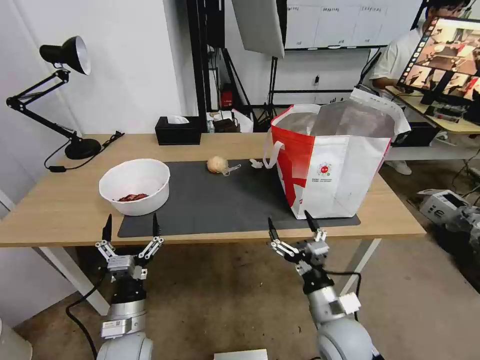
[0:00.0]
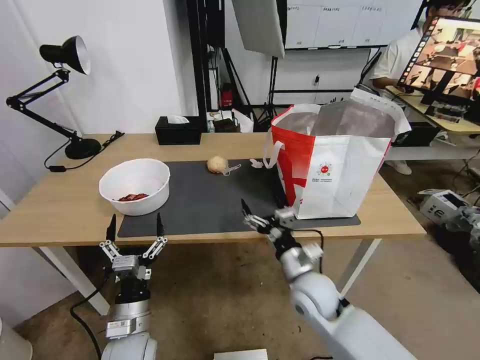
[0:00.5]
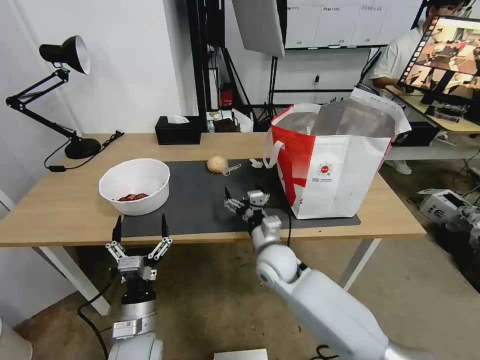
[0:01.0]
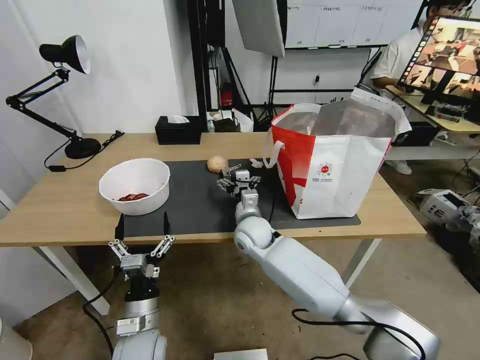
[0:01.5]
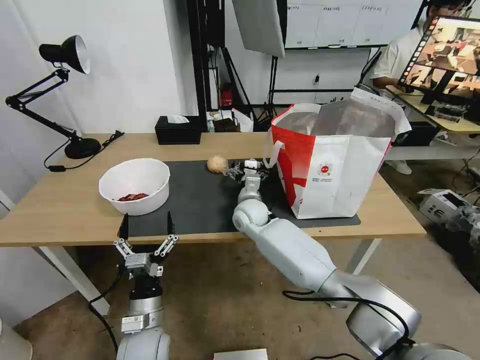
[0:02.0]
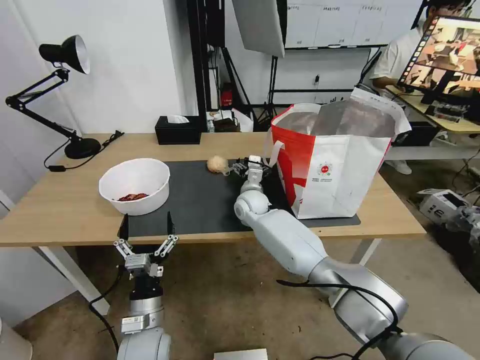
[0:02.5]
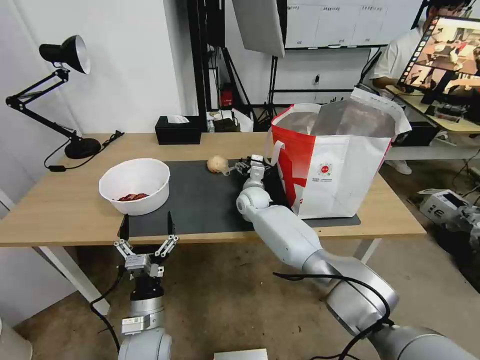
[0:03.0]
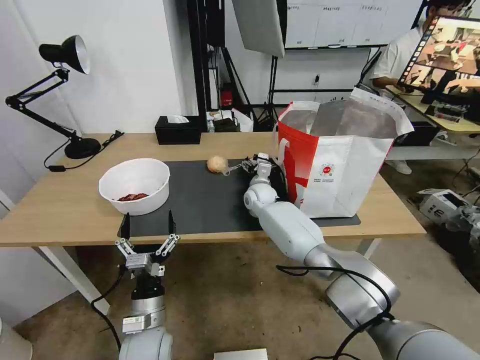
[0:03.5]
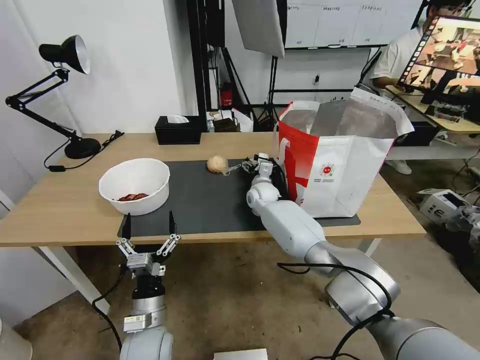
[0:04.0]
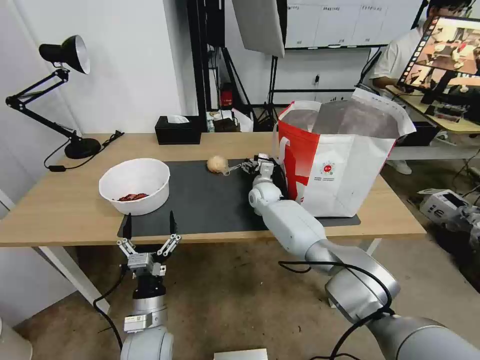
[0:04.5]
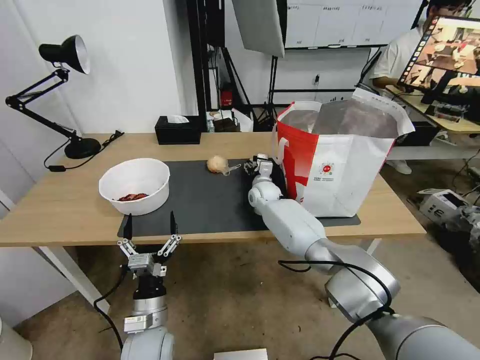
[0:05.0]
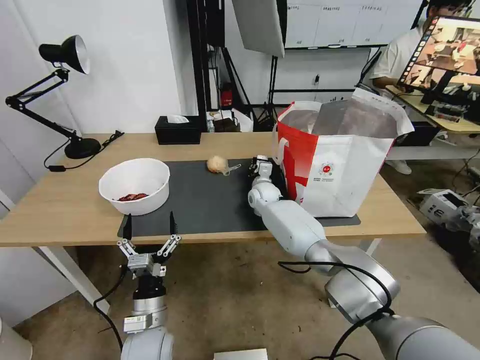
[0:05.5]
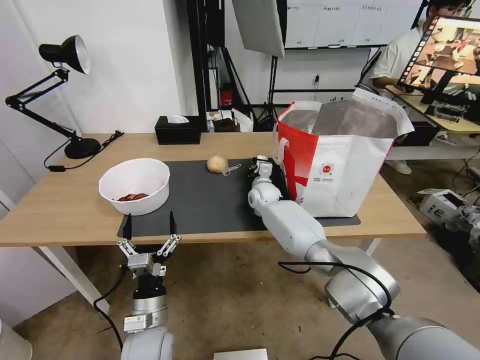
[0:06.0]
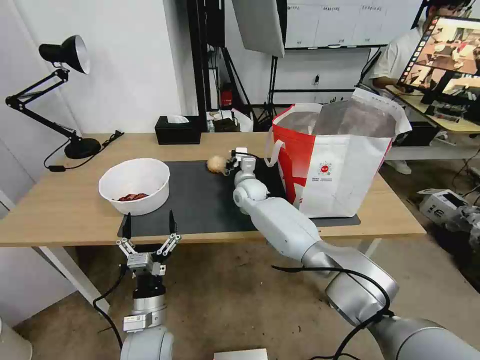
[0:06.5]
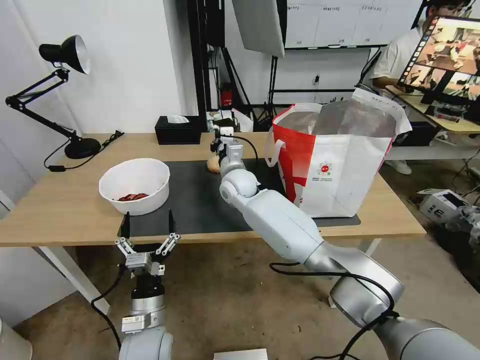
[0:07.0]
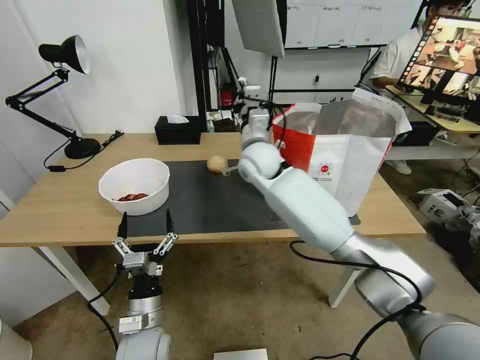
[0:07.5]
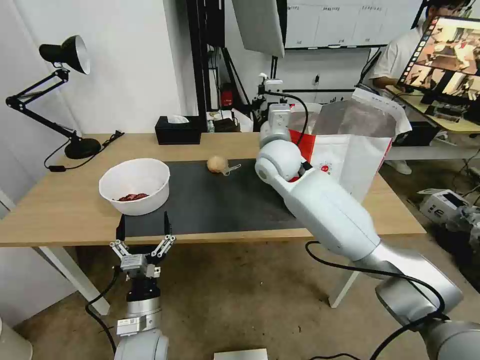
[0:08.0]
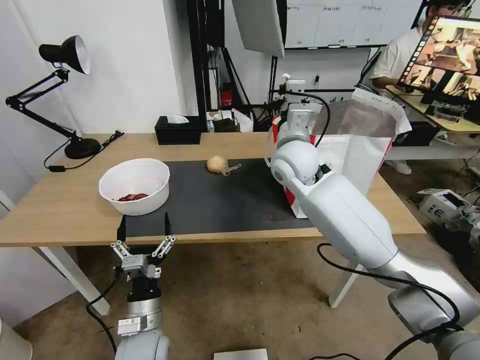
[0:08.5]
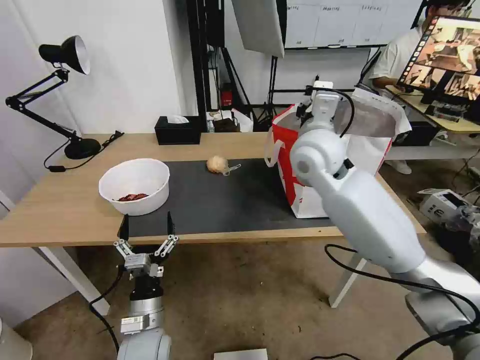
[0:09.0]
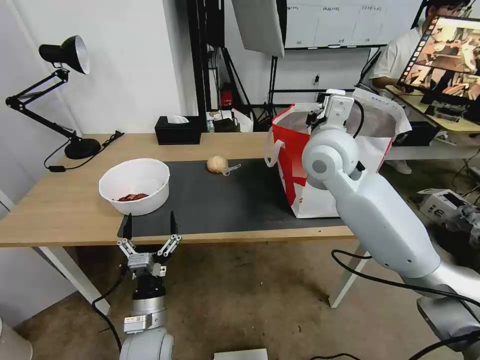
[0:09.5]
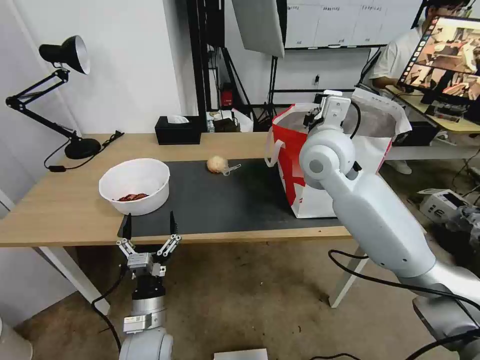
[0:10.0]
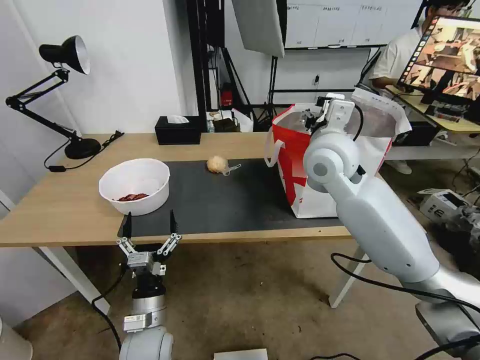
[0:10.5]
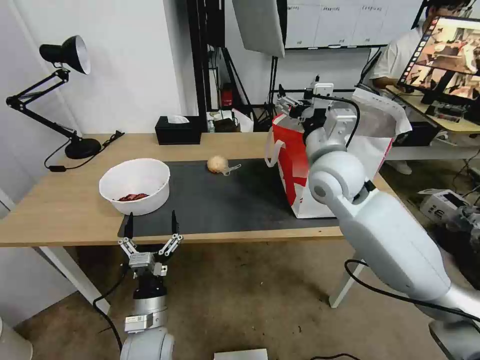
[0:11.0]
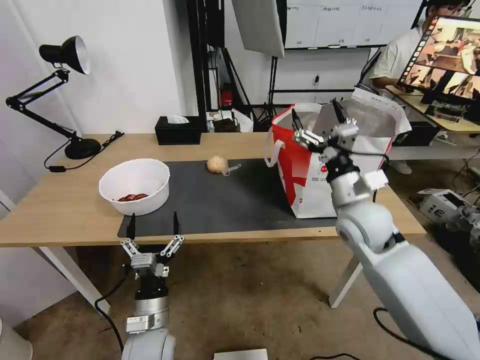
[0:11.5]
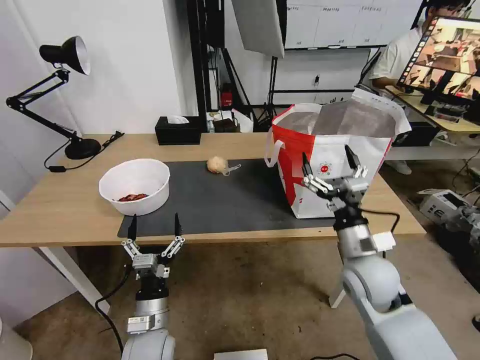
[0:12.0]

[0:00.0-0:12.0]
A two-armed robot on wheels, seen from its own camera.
Task of the whole recording: Pick up the trash from the table and place it into the takeout bag.
0:00.0 to 0:02.0: The right gripper travels forward and to the left by roughly 35 cm.
0:02.0 to 0:04.0: The right gripper goes approximately 10 cm forward.
0:04.0 to 0:06.0: The right gripper closes up.
0:06.0 to 0:08.0: The right gripper moves upward and backward, some 25 cm.
0:08.0 to 0:10.0: The right gripper moves to the right, backward and upward, about 10 cm.
0:10.0 to 0:12.0: The right gripper shifts roughly 25 cm downward, backward and to the right, and opens up.

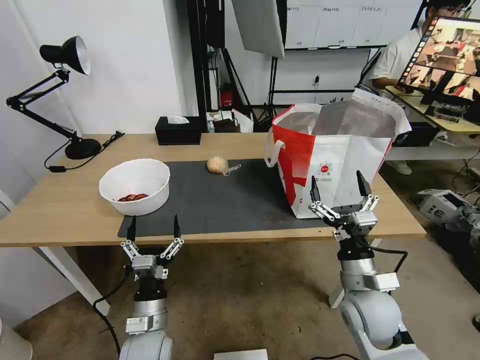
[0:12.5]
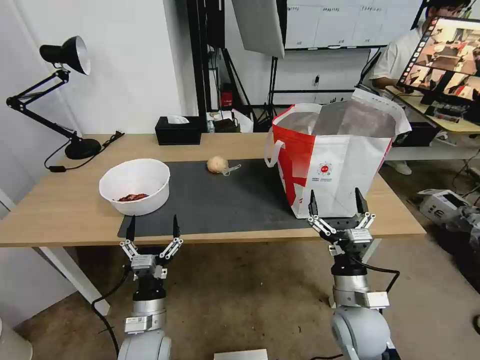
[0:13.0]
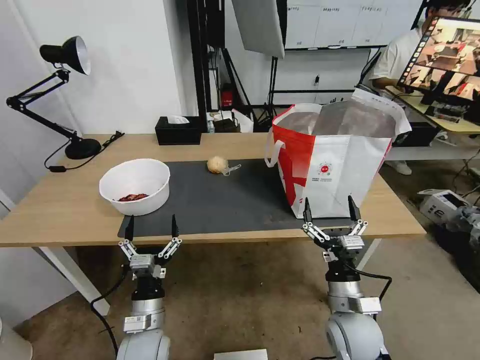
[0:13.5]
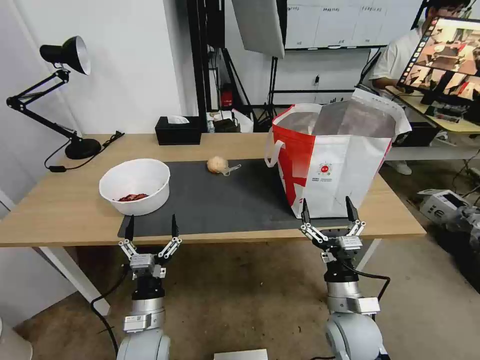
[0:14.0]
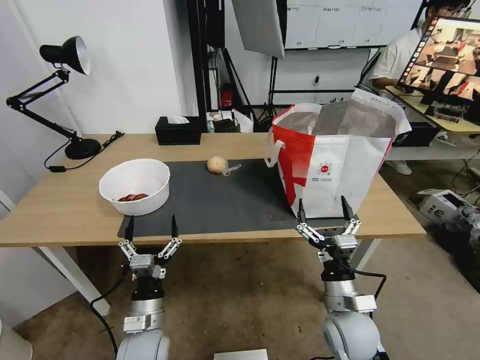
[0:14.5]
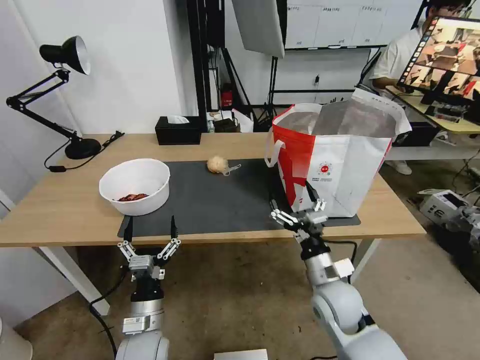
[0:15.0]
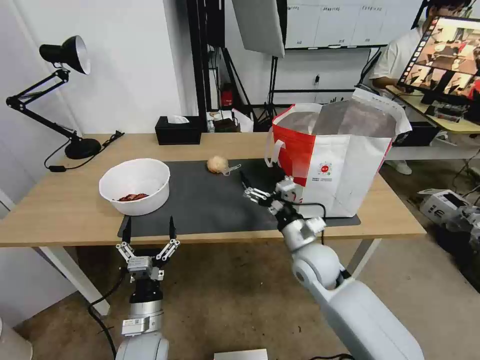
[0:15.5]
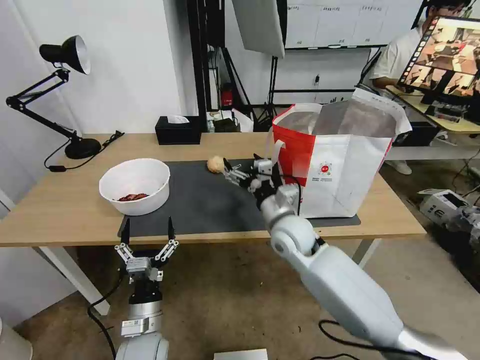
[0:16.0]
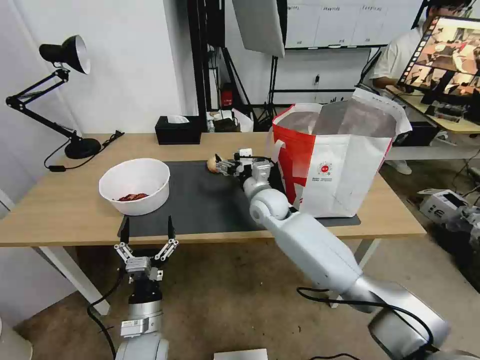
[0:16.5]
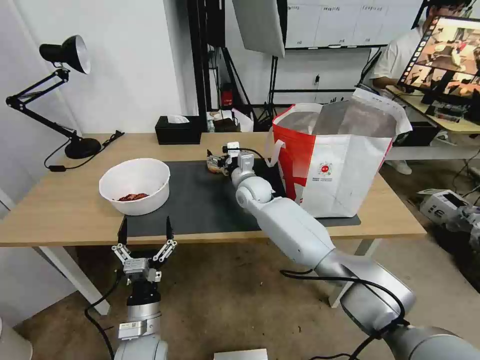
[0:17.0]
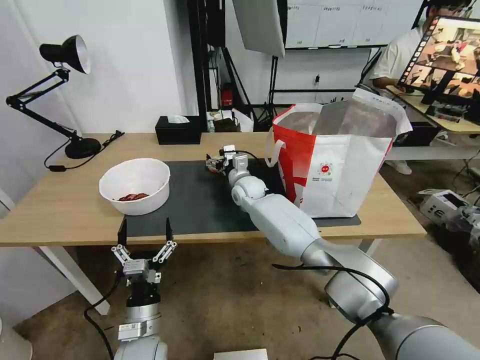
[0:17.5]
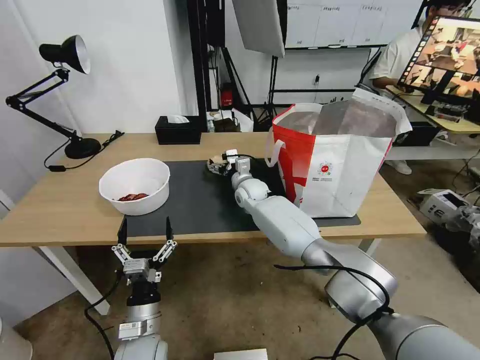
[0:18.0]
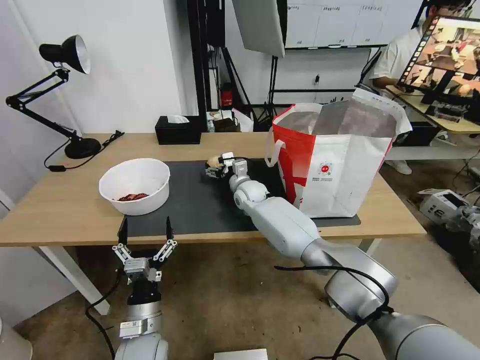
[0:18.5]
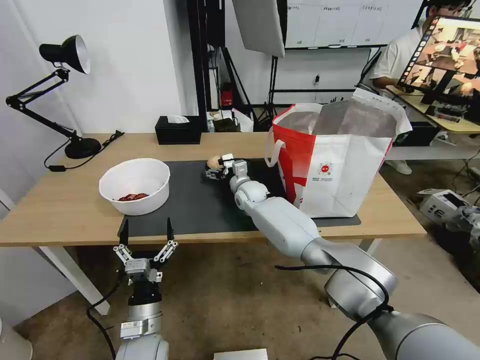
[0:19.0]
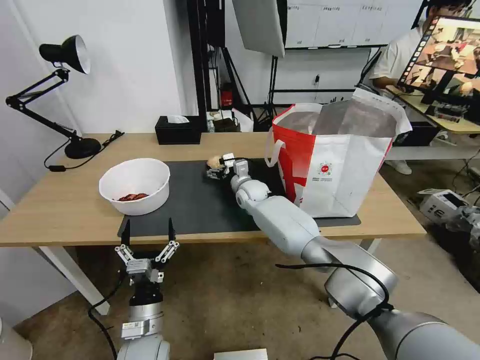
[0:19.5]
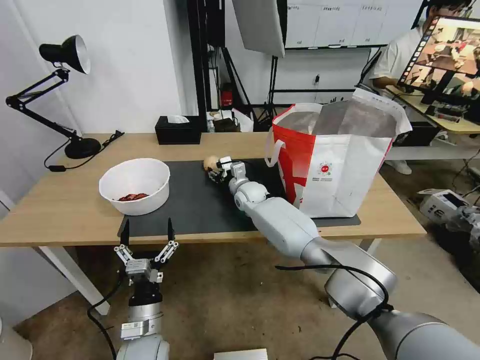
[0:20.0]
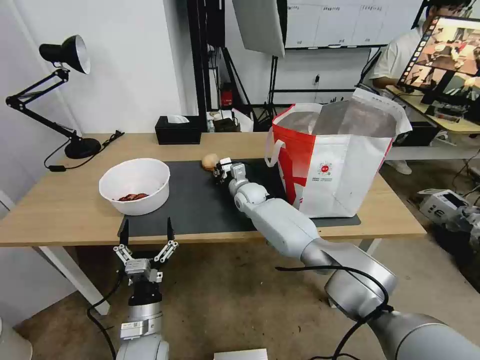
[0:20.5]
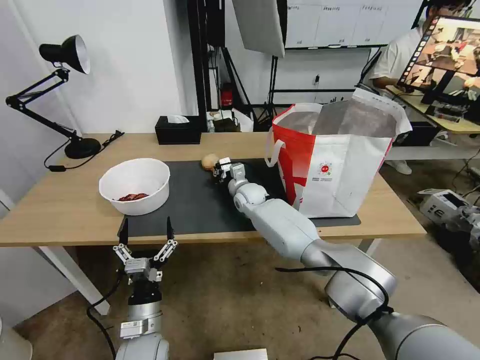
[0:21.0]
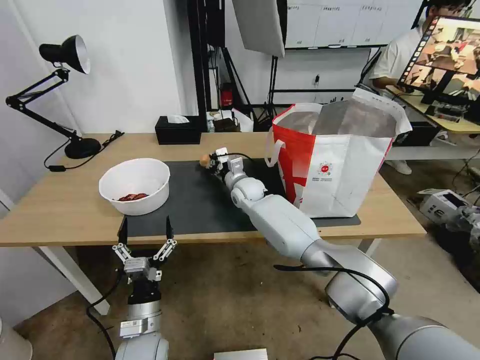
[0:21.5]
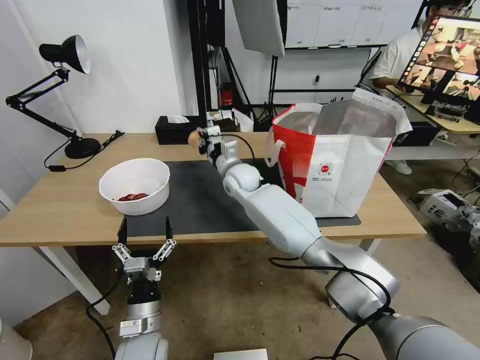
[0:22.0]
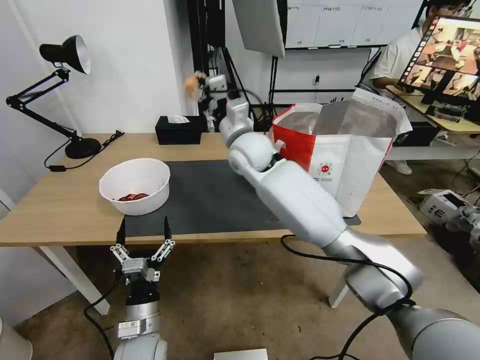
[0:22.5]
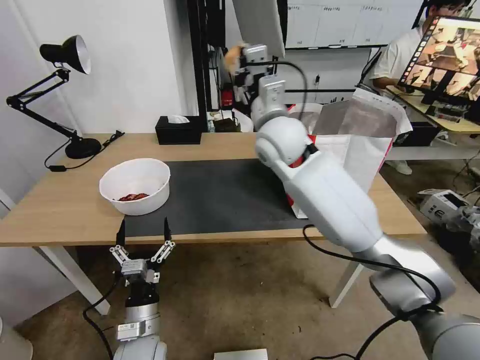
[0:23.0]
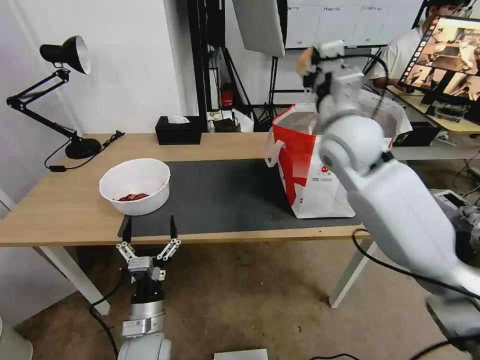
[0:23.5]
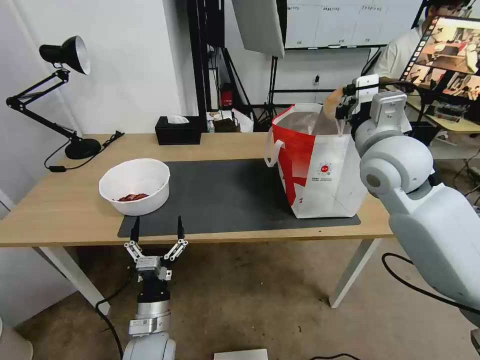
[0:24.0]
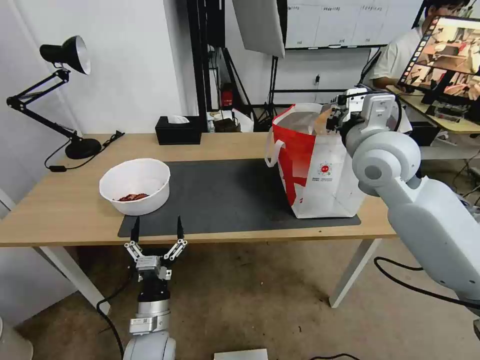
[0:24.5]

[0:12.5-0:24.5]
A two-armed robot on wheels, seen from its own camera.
Task of the whole recording: Pick up the trash from the table and place it into the takeout bag.
0:12.5 to 0:14.5: The right gripper changes place by some 5 cm.
0:14.5 to 0:16.5: The right gripper shifts roughly 30 cm forward and to the left.
0:16.5 to 0:18.5: The right gripper moves forward, approximately 10 cm.
0:18.5 to 0:20.5: The right gripper closes up.
0:20.5 to 0:22.5: The right gripper is displaced upward by some 20 cm.
0:22.5 to 0:24.5: The right gripper moves to the right and backward, roughly 25 cm.

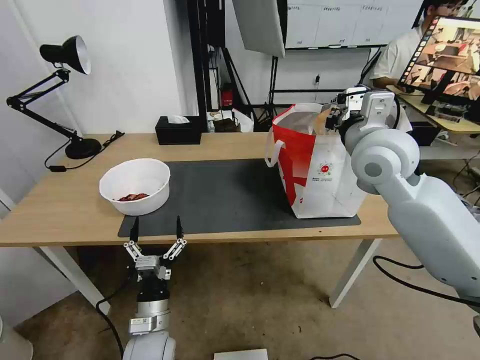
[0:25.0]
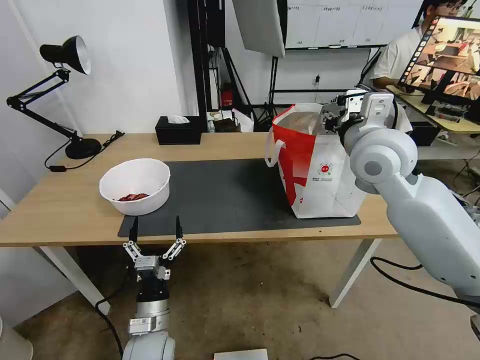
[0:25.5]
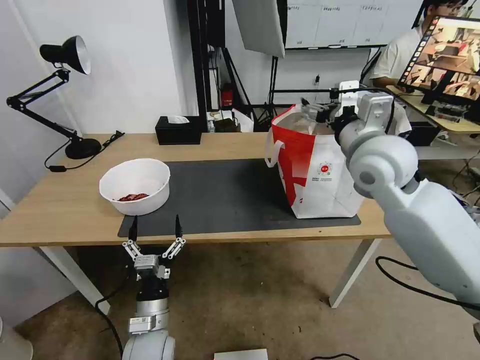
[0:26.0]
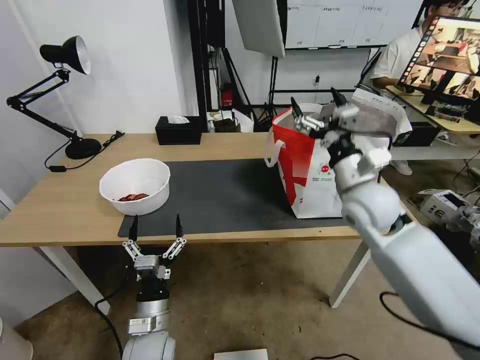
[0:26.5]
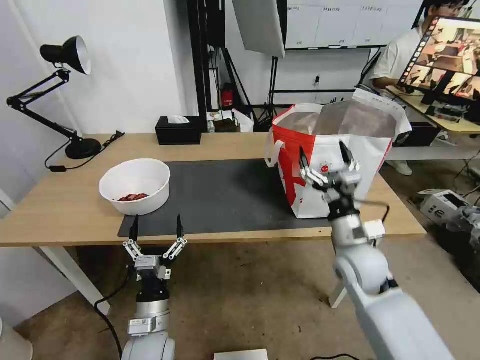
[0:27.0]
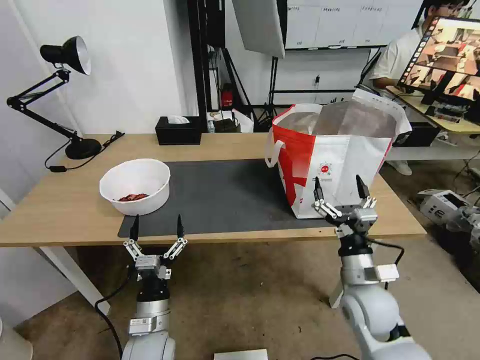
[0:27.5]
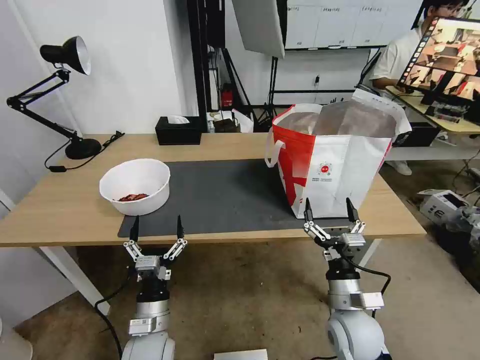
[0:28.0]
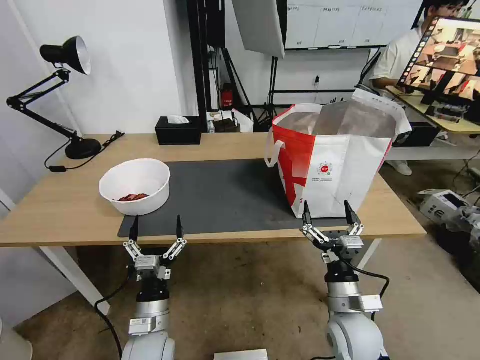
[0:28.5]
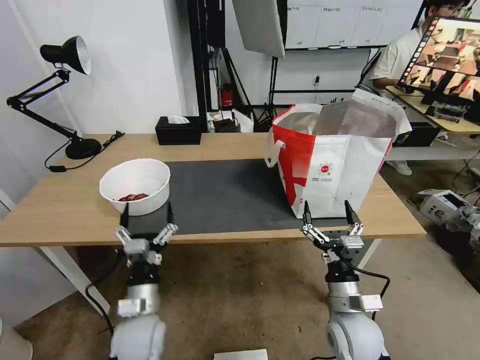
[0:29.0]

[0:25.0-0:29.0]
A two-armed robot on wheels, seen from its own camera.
Task of the whole recording: Pick up the trash from the table and place it into the takeout bag.
0:25.0 to 0:27.0: The right gripper shifts some 25 cm downward, and opens up.
0:27.0 to 0:29.0: The right gripper is displaced backward and downward by approximately 15 cm.
